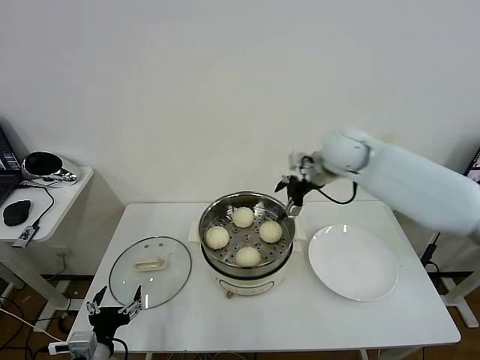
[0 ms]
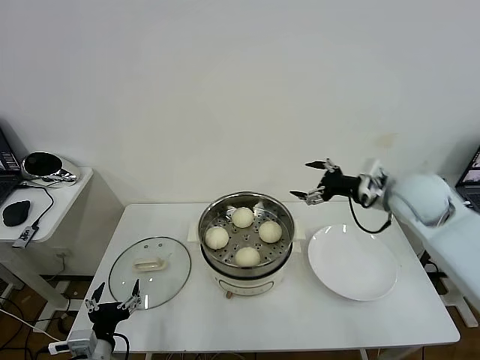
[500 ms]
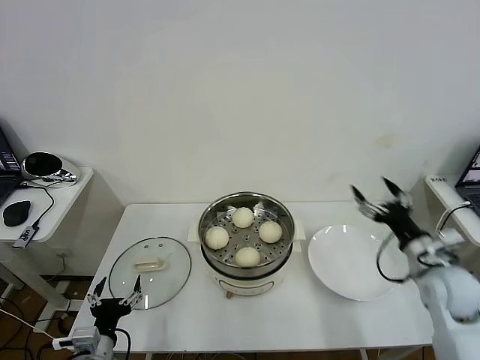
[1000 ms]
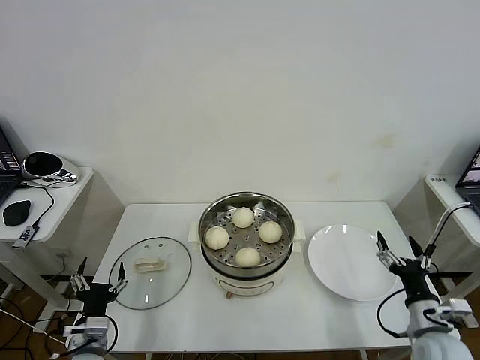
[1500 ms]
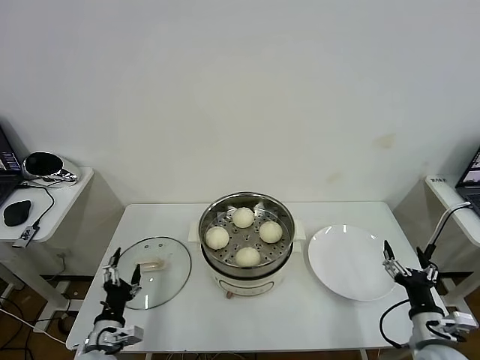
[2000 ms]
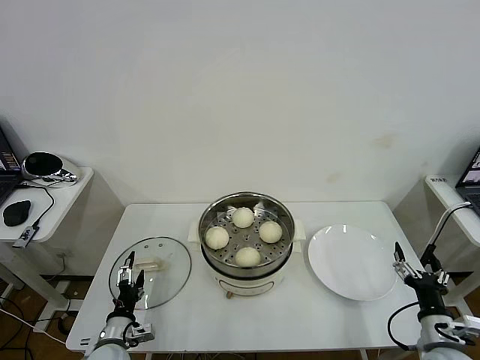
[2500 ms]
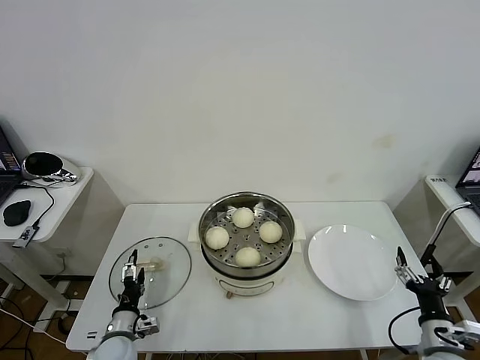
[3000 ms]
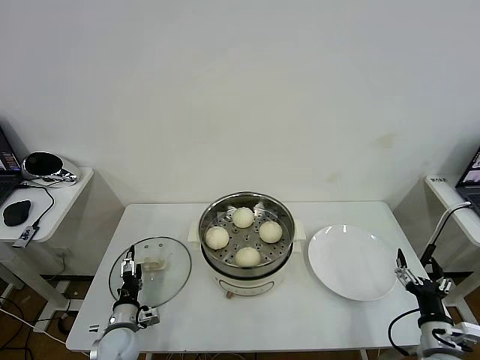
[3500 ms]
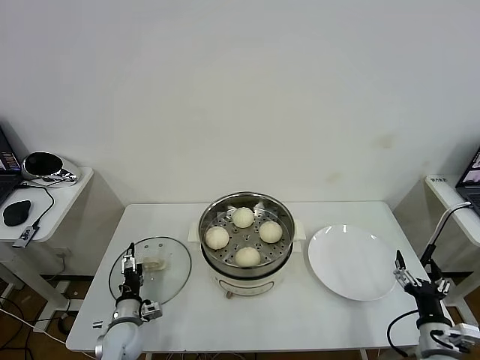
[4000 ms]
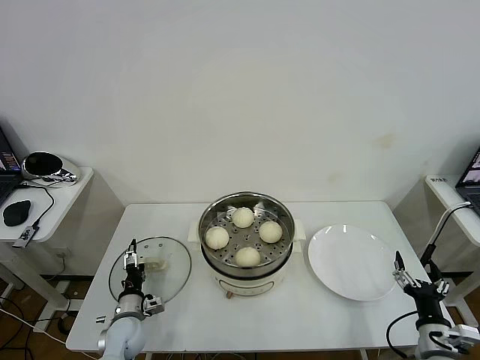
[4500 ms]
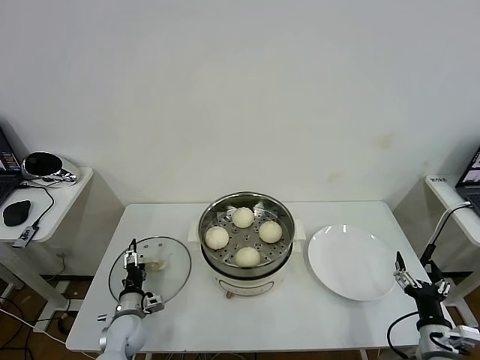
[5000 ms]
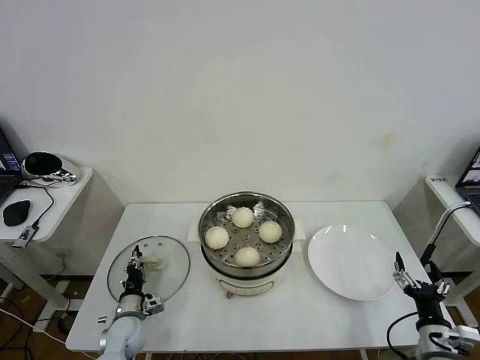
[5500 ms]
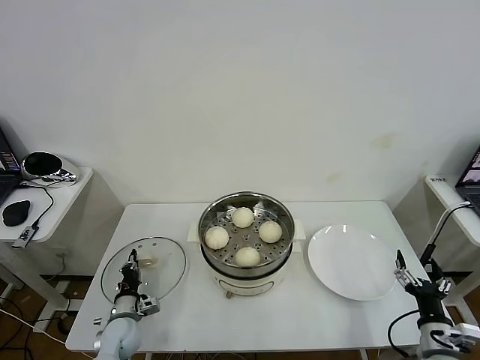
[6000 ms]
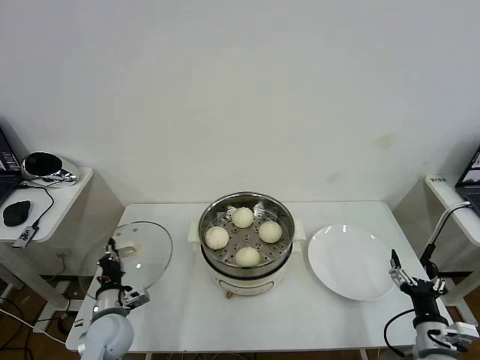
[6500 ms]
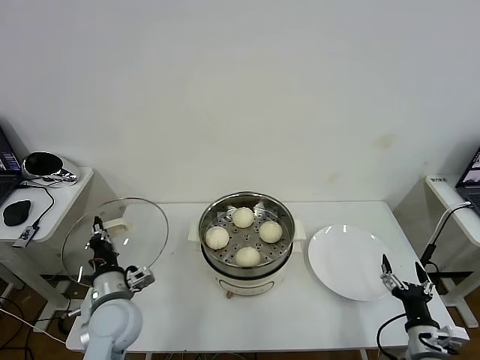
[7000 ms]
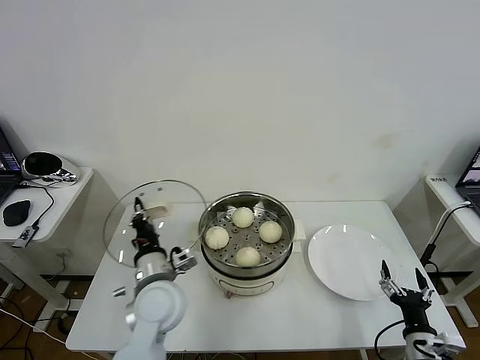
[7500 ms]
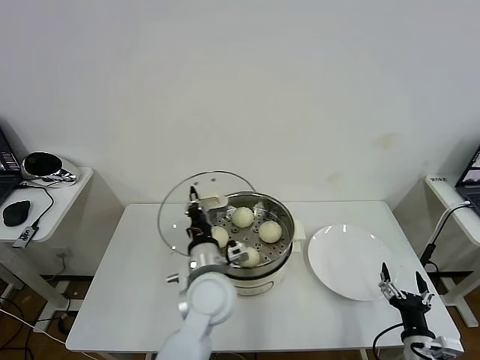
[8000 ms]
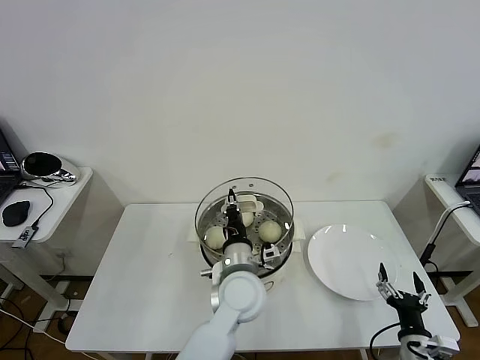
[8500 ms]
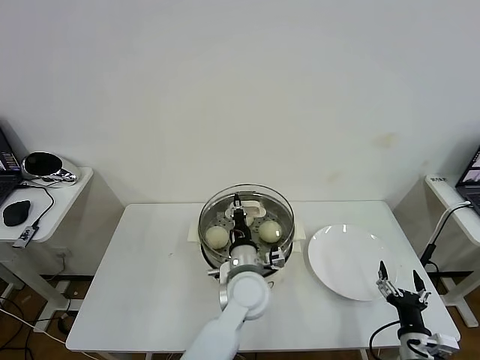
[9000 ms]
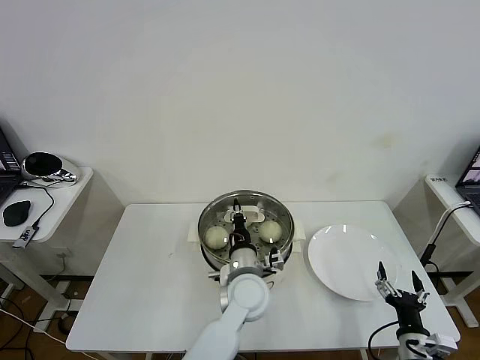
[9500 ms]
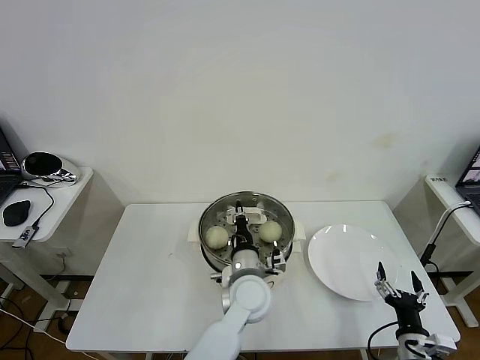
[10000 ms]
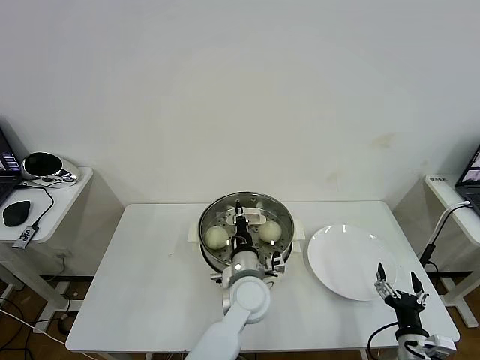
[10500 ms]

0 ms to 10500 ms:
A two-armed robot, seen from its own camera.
Task of the whole recording: take steamed baozi put them in steamer then cover it.
Step, 0 ms to 5500 ms: Grasp the pot lid with left gripper.
0 ms to 2000 ms: The right gripper heads backward, downward and to the right, covering about 50 cm. Meanwhile the left gripper heads downward and forward, covering approximately 10 cm.
2000 ms to 4000 ms: The left gripper shifts some 10 cm forward and downward.
4000 ms to 6500 ms: The left gripper goes some 5 cm upward, and closes.
6500 ms to 8500 ms: The left gripper goes some 35 cm to the right and upward.
8500 ms to 10500 ms: The left gripper moves downward, approximately 5 cm.

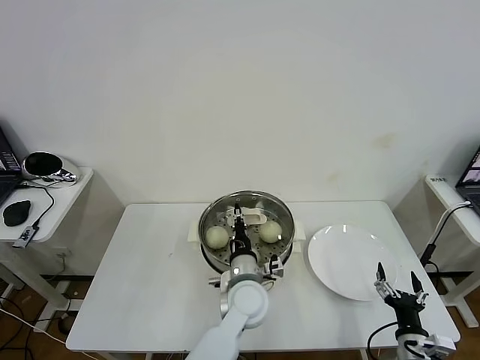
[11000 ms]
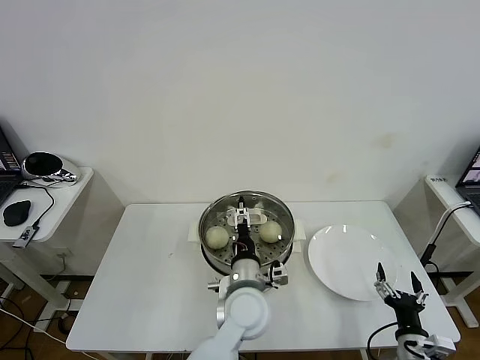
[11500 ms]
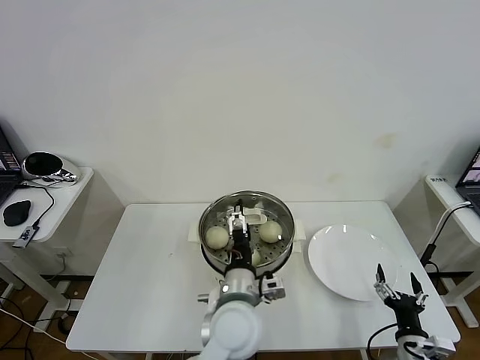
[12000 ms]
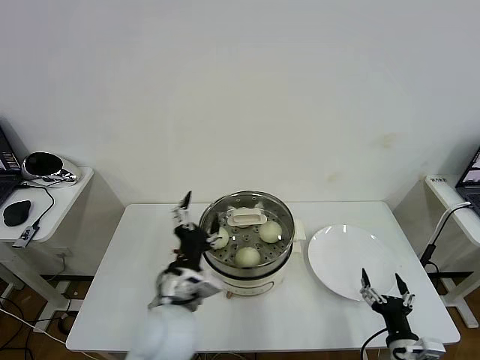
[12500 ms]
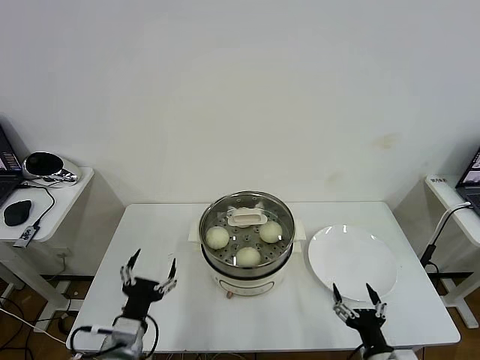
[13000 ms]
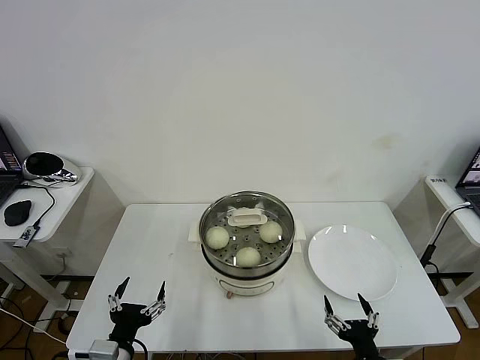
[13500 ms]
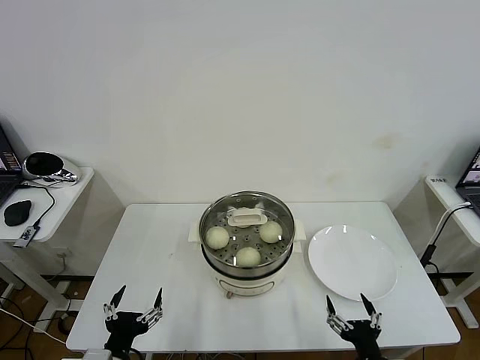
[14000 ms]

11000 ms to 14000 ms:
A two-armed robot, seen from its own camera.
Task of the whole recording: take steamed baozi put them in steamer then cover it.
11000 ms to 12500 ms: The left gripper is displaced to the left, upward and backward by about 20 cm, and opens.
12500 ms to 14000 ms: The right gripper is displaced to the left by about 5 cm; the left gripper heads to the left, backward and downward, covering roughly 20 cm.

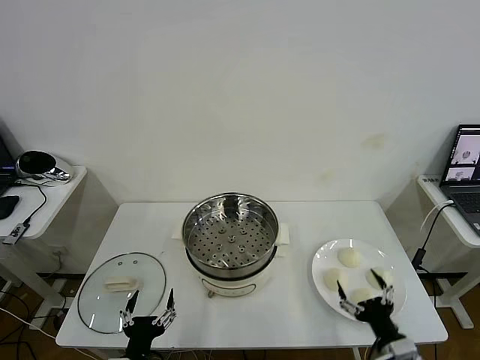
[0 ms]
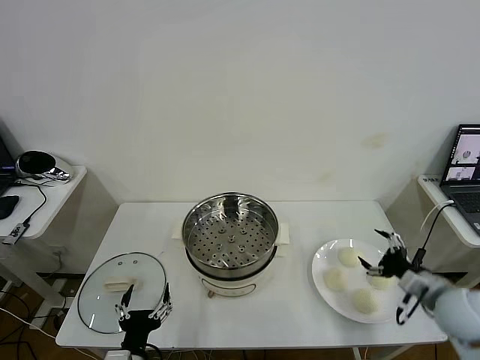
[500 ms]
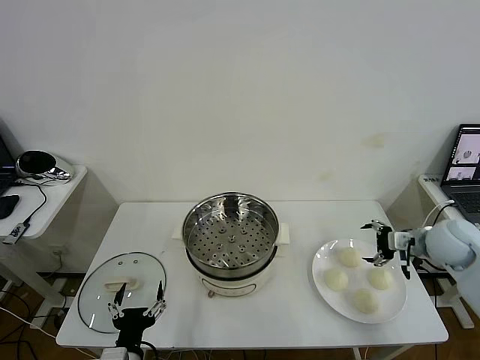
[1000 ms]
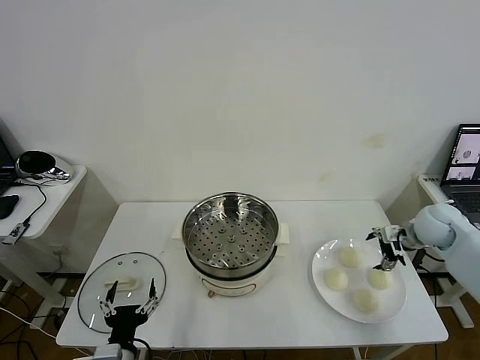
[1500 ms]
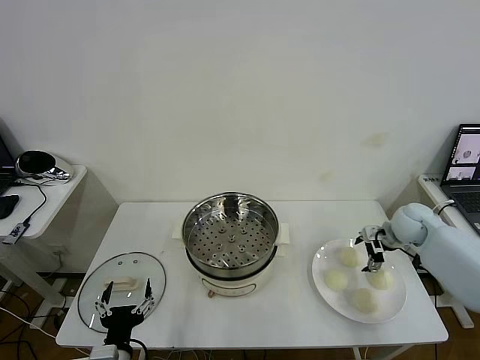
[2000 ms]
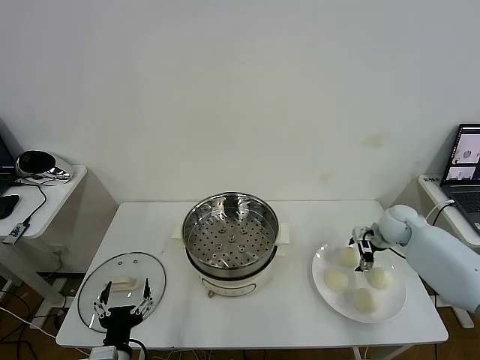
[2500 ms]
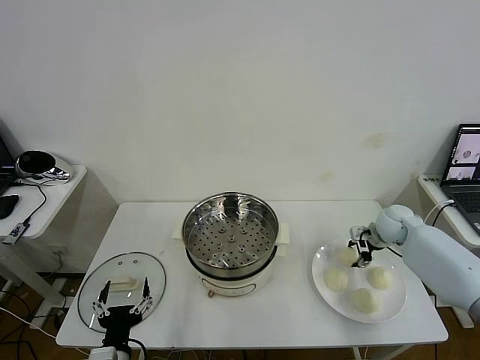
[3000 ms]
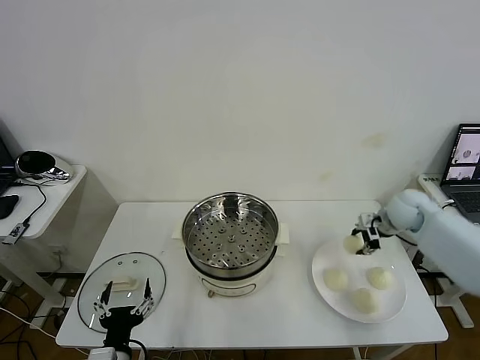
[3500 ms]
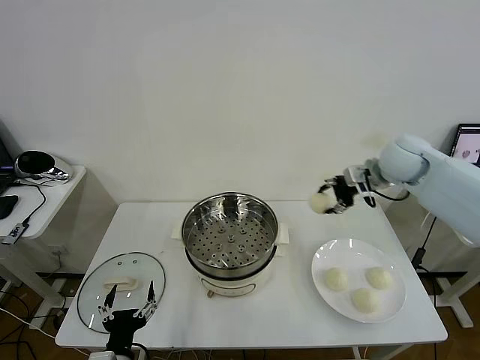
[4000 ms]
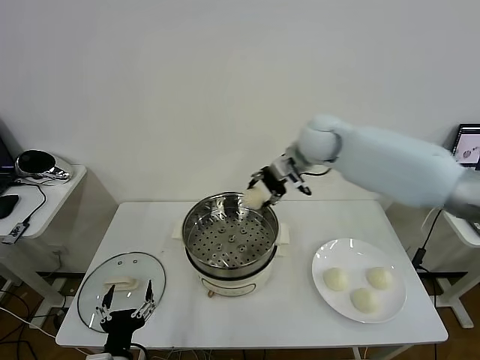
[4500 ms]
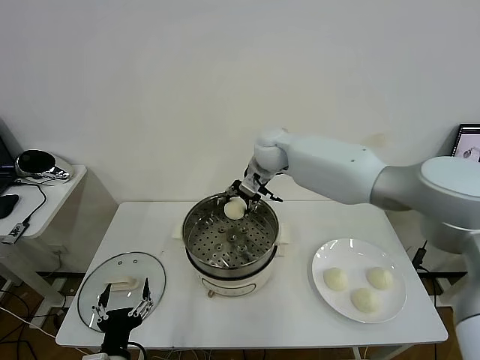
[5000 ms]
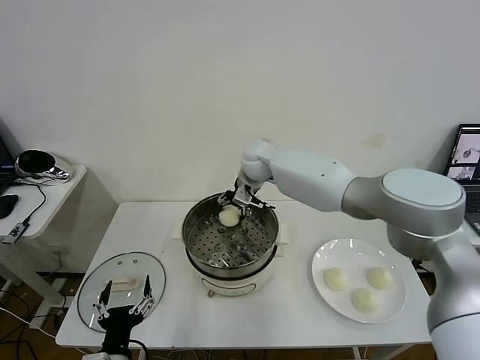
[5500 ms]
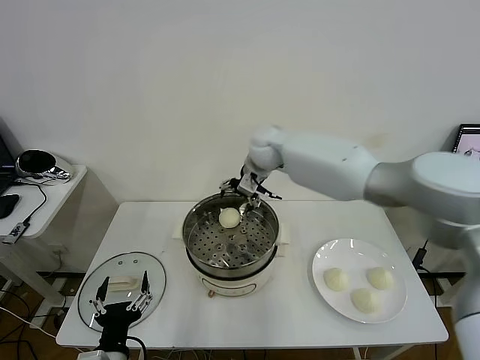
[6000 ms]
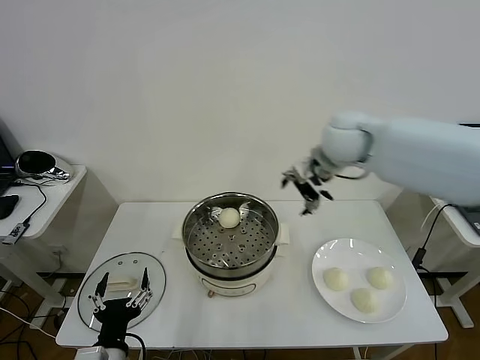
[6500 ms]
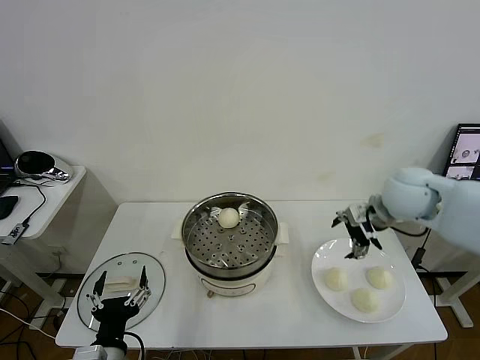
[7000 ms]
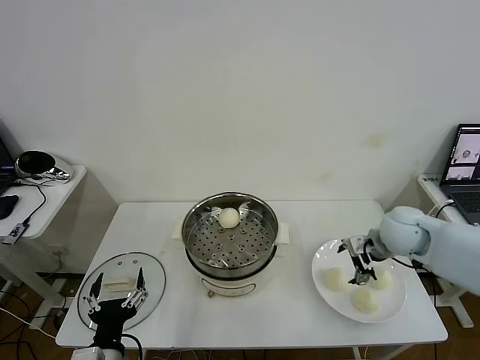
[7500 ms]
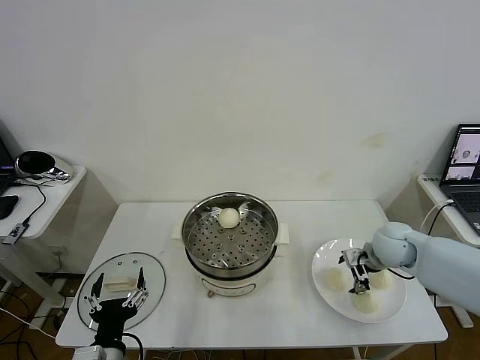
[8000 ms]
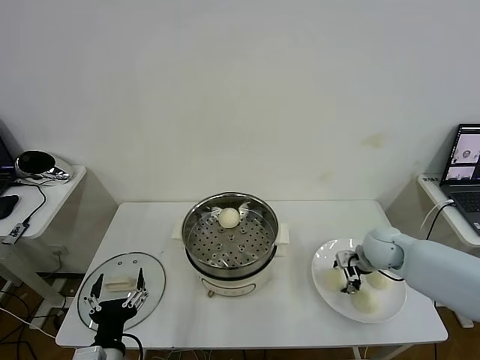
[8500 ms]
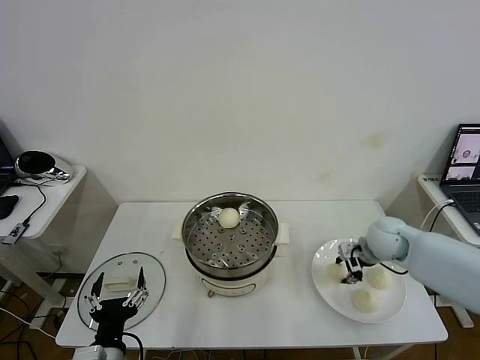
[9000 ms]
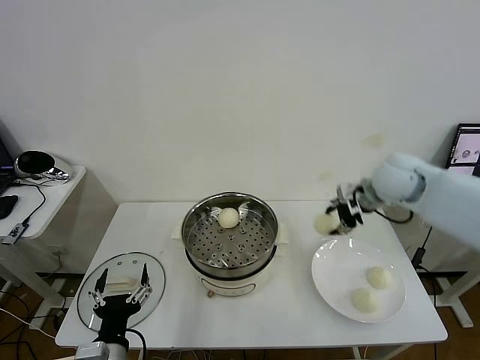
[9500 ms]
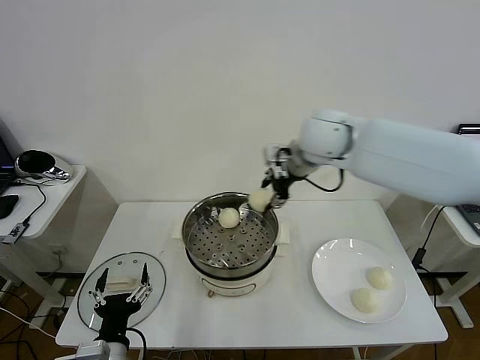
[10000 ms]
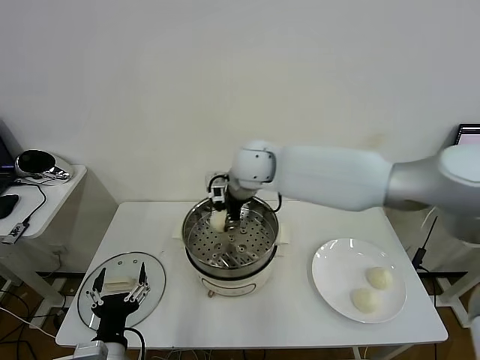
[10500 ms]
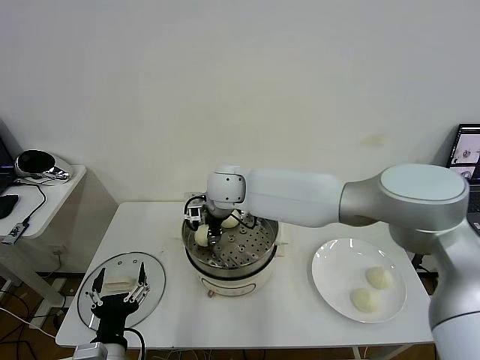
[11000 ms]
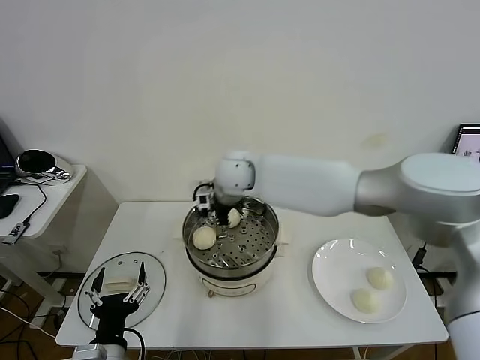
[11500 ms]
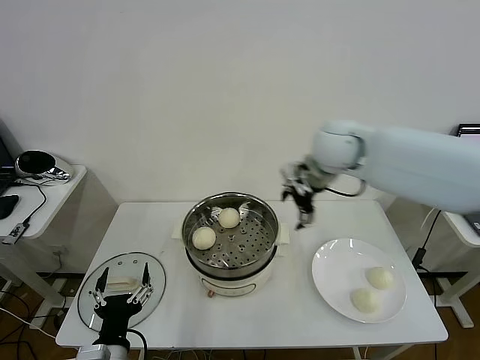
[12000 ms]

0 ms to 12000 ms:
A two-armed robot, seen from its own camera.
Task of the whole recording: take steamed baozi put them in steamer then cover it.
Step, 0 ms to 3000 ms: Grasp the baozi in the plate with right gripper.
Step, 3500 ms to 5500 ms: Place the baozi on the steamer with right gripper.
Step, 6500 ms to 8500 ms: Grasp the baozi in the plate with right gripper.
Step, 9000 ms to 11000 ms: Place the baozi on the steamer with right gripper.
2000 ms to 4000 ms: The right gripper heads upward and to the left, covering some 20 cm, and closes its fingers.
4000 ms to 6000 ms: The right gripper moves to the left, roughly 25 cm, and opens.
6000 ms to 8000 ms: The right gripper goes some 35 cm to the right, backward and downward.
8000 ms to 10000 ms: The right gripper moves upward and to the left, some 30 cm, and closes its fingers.
10000 ms to 12000 ms: The right gripper goes to the left and returns, some 20 cm each way, and opens up.
